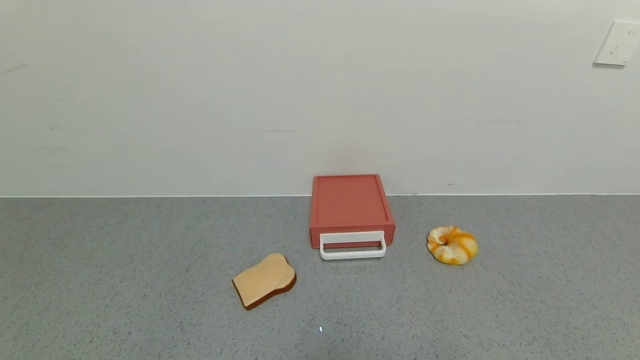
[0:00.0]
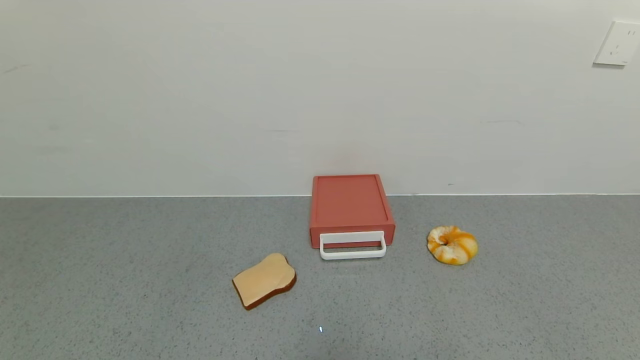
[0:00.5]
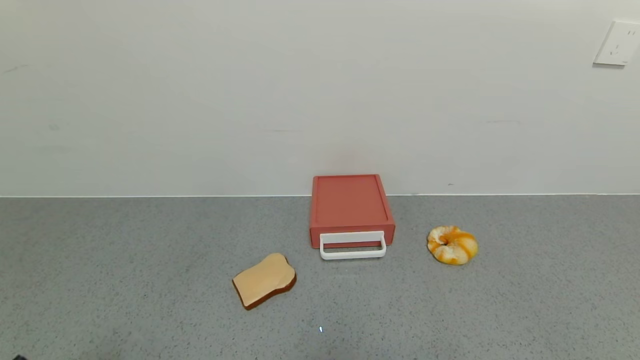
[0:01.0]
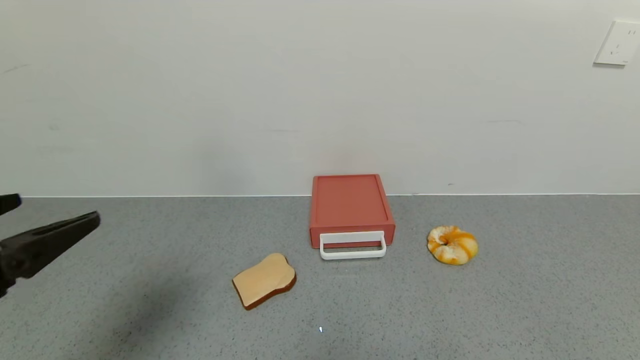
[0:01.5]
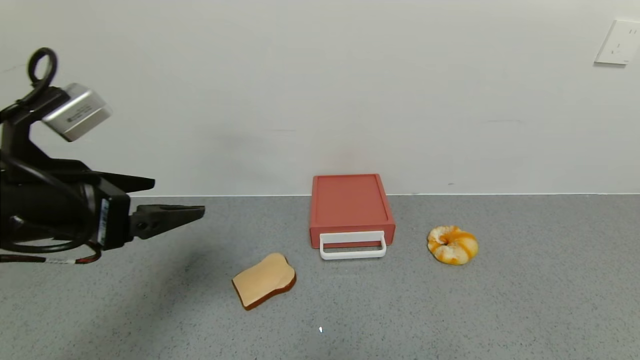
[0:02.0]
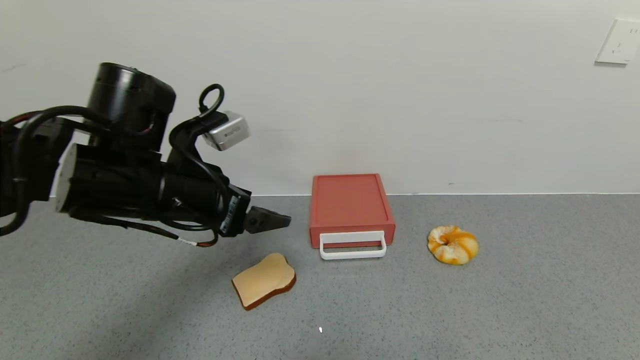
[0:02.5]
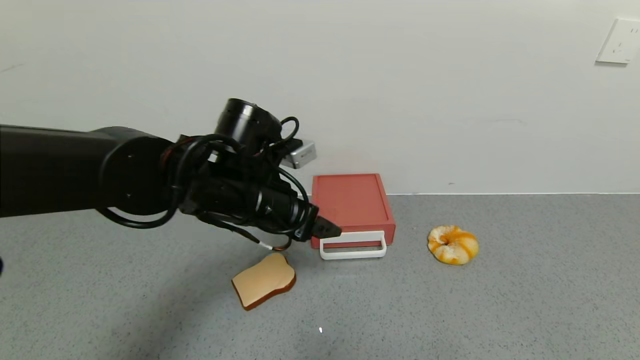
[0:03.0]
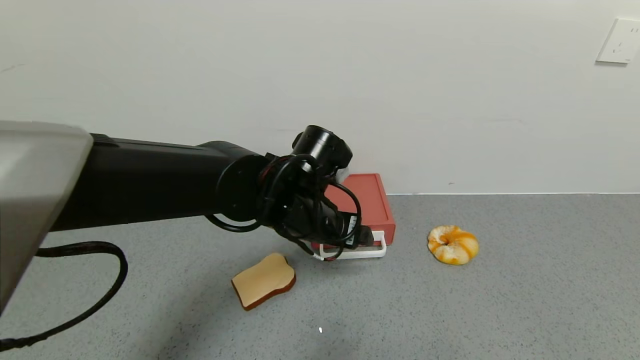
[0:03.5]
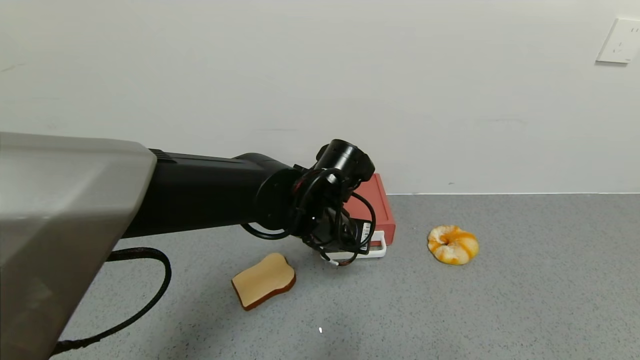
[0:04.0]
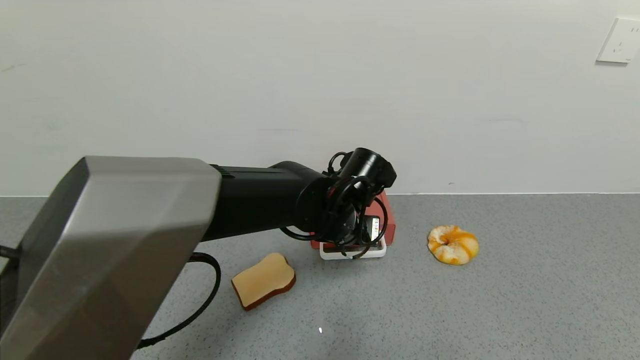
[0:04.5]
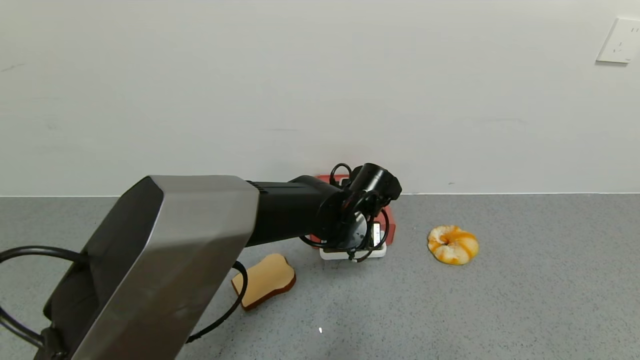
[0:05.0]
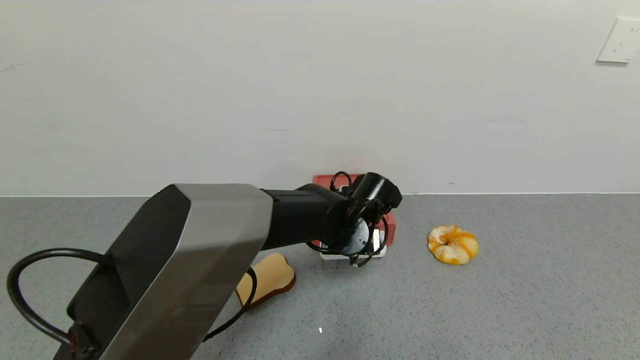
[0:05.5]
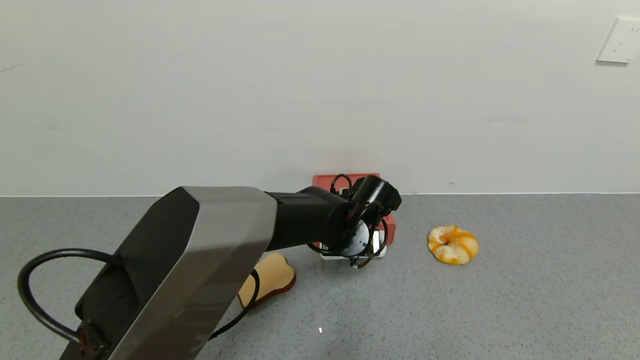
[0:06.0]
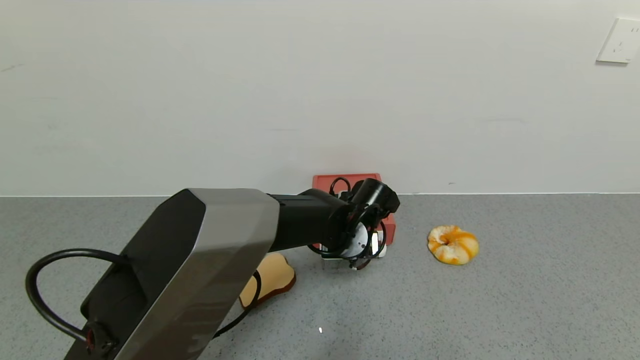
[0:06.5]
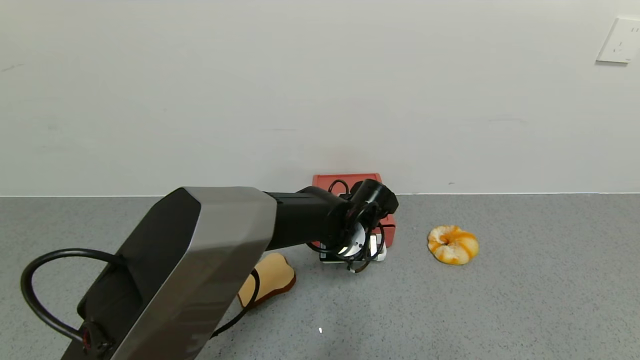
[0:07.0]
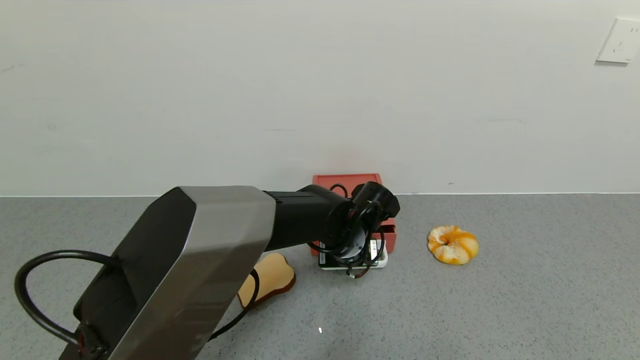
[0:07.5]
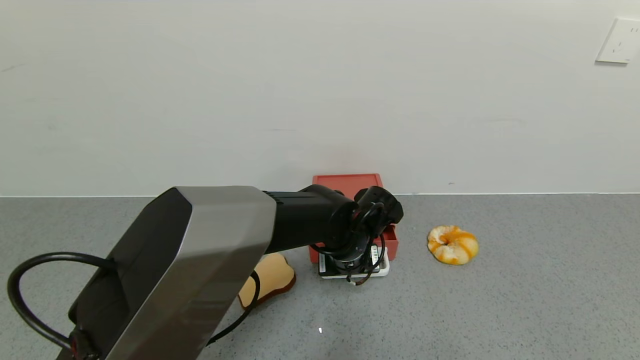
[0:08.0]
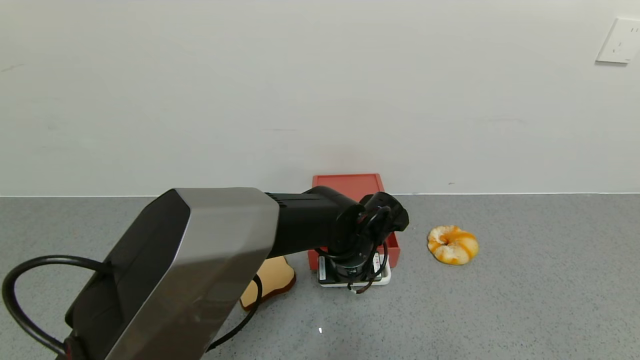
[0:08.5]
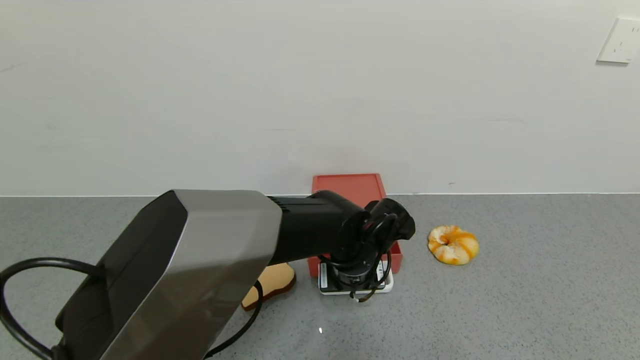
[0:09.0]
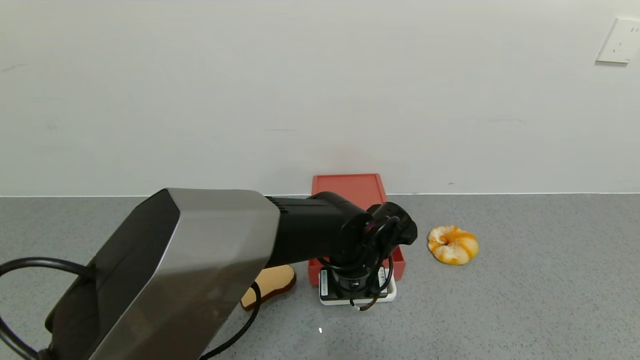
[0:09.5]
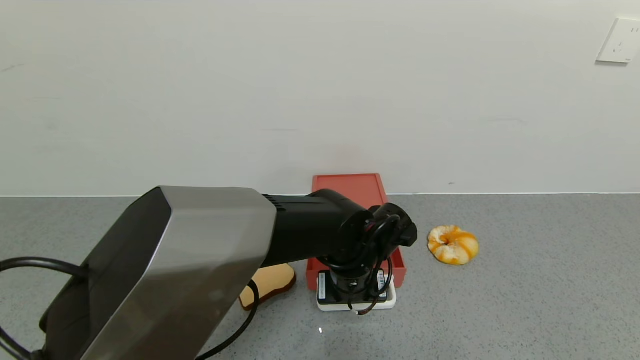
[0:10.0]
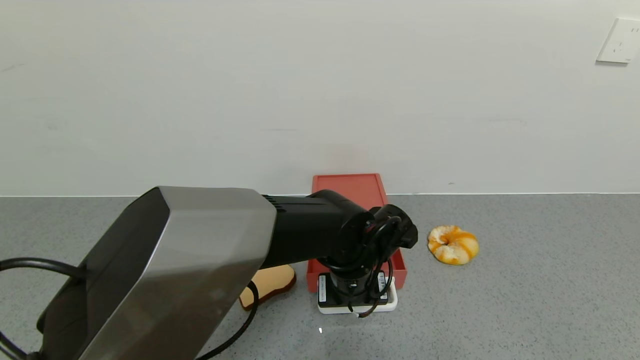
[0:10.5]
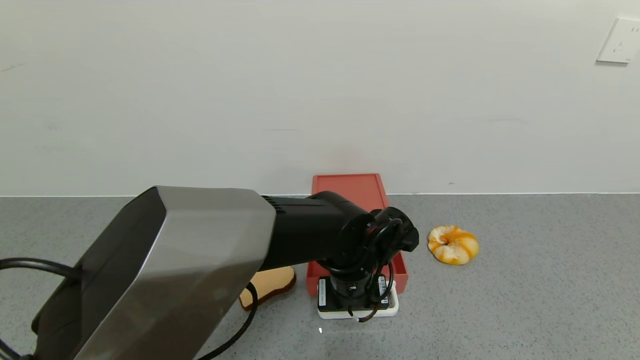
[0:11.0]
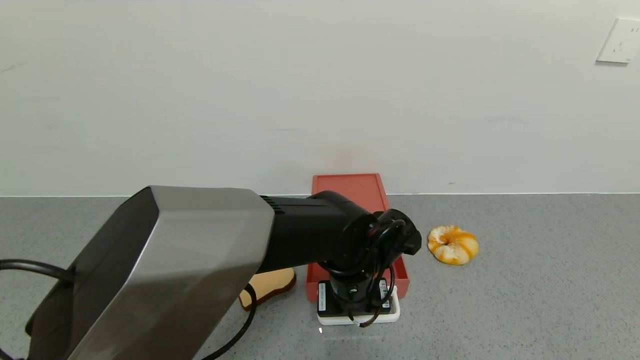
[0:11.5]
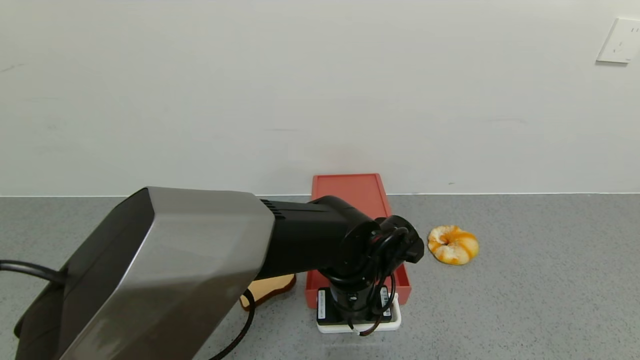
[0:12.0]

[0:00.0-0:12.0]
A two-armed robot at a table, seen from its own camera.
Task of the whole recording: use the gripper to open the drawer and close the red drawer.
0:00.0 to 0:02.0: The left gripper is displaced forward and upward by roughly 25 cm.
0:02.0 to 0:04.0: The left gripper moves to the right, forward and downward, roughly 30 cm, and closes up.
0:04.0 to 0:06.0: The left gripper is displaced downward by roughly 5 cm, and closes.
0:06.0 to 0:08.0: The grippers move only a little.
0:08.0 to 0:10.0: The grippers move only a little.
0:10.0 to 0:12.0: There are only small adjustments of the grippers.

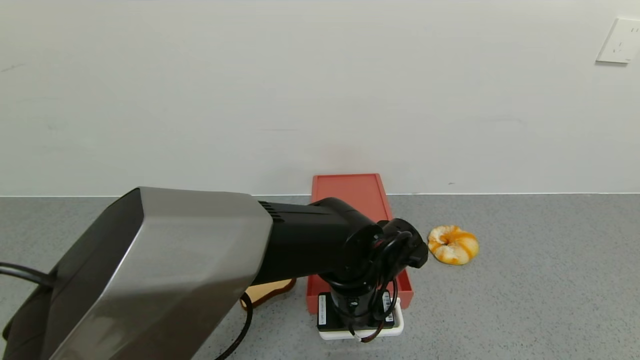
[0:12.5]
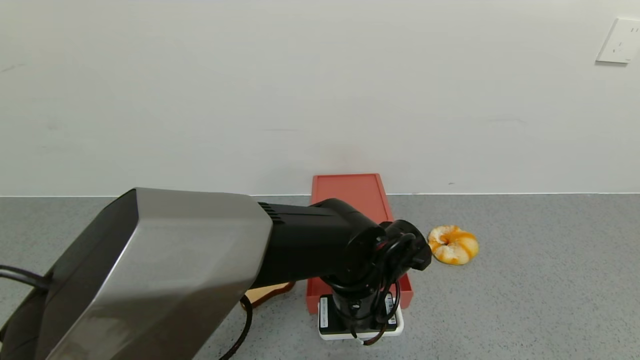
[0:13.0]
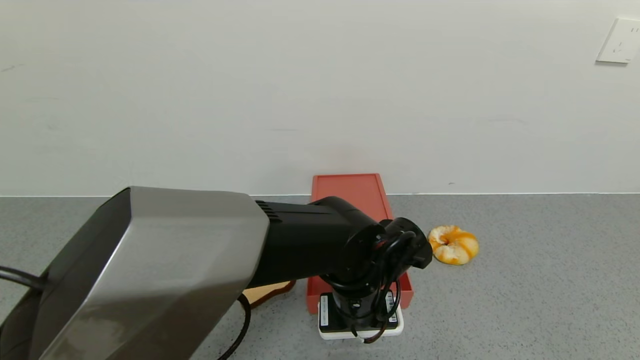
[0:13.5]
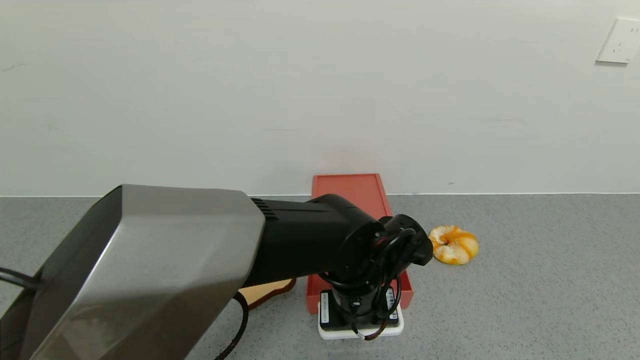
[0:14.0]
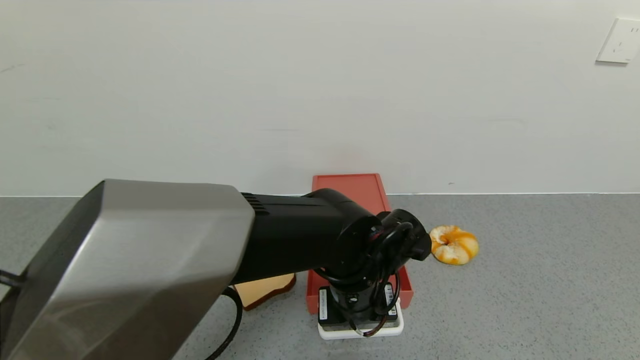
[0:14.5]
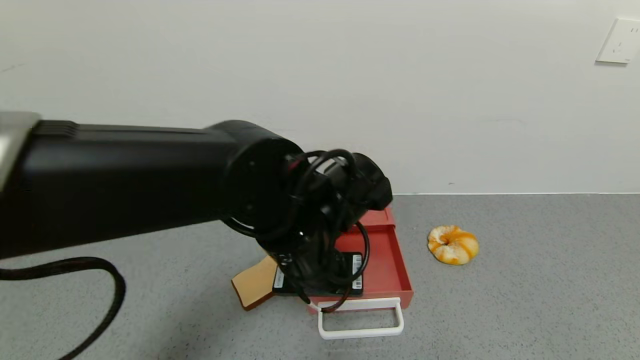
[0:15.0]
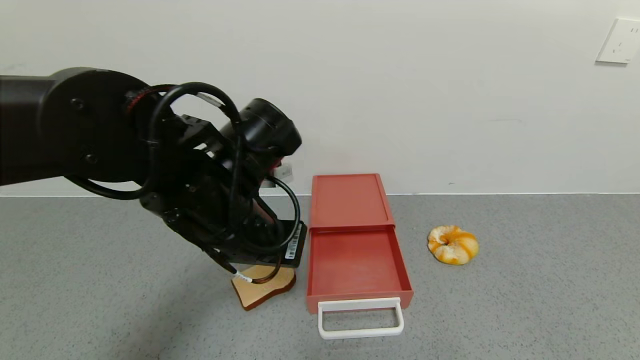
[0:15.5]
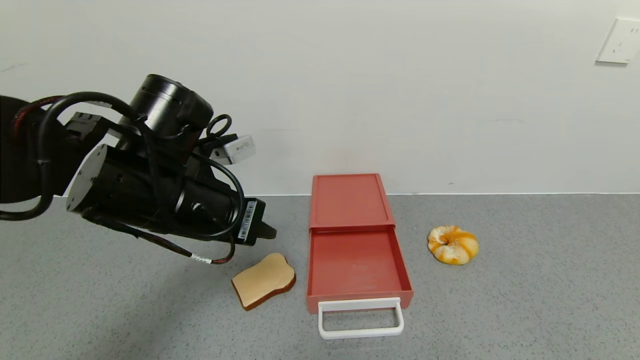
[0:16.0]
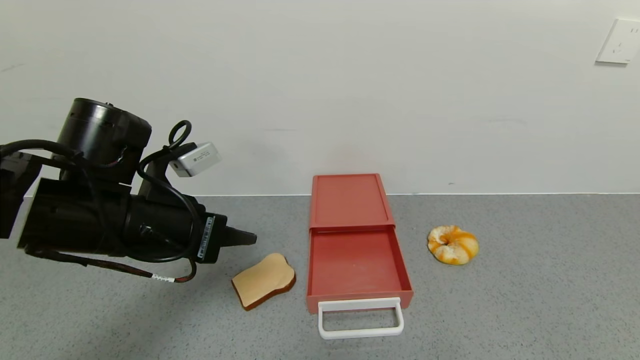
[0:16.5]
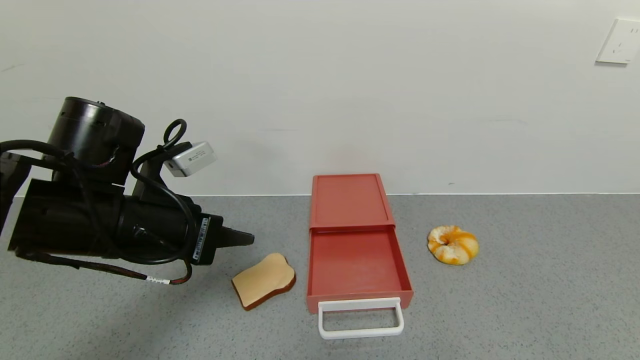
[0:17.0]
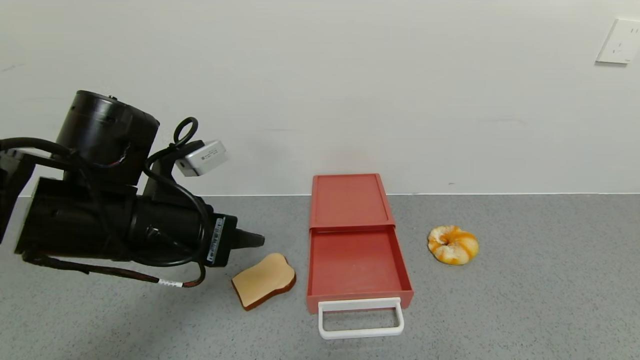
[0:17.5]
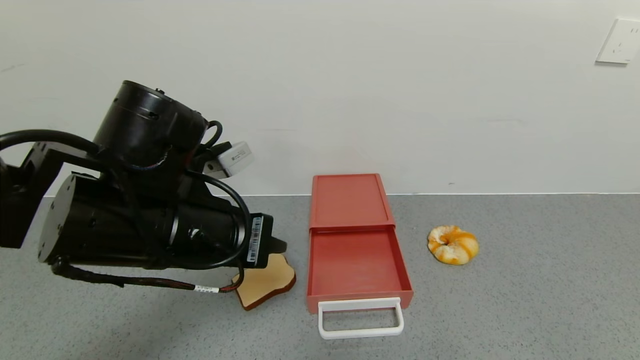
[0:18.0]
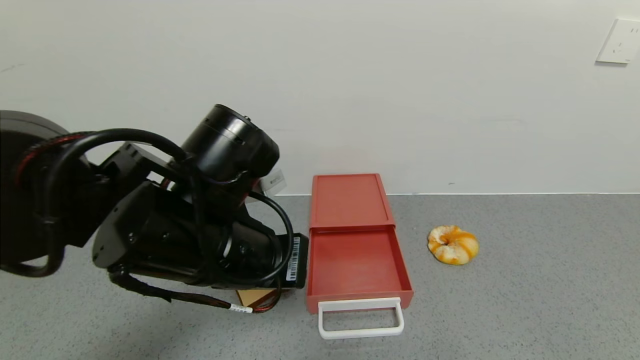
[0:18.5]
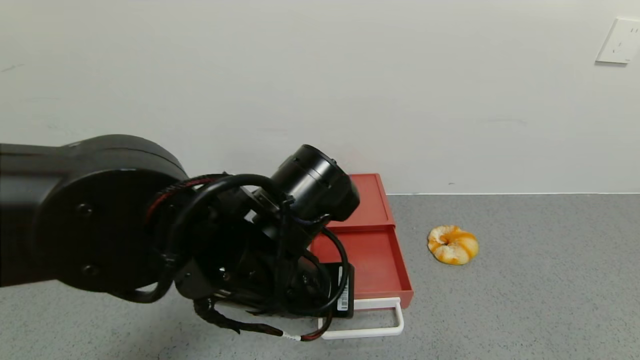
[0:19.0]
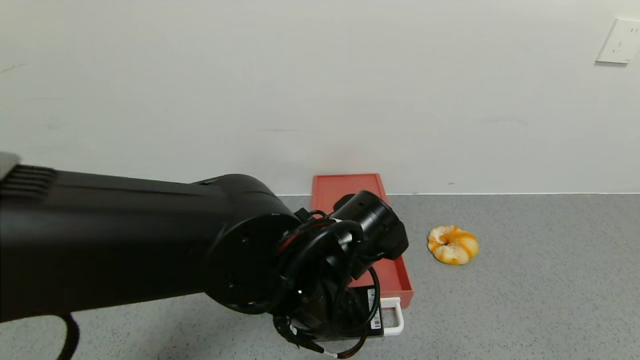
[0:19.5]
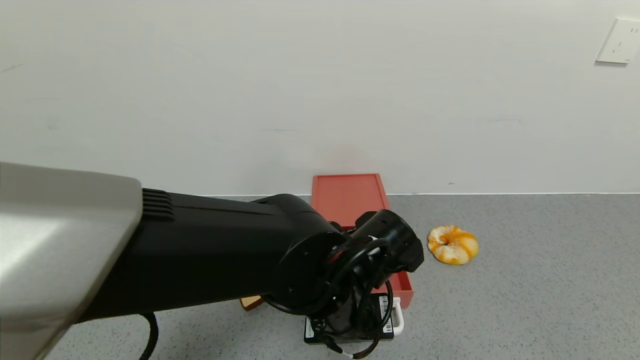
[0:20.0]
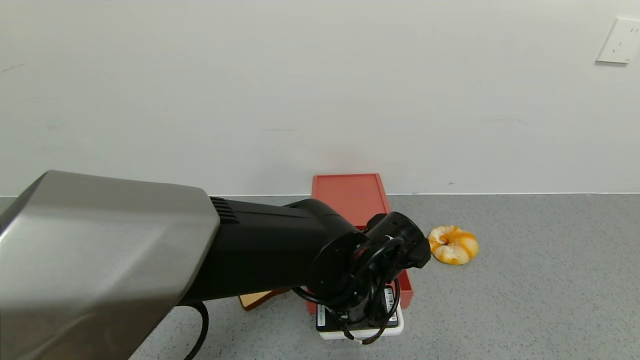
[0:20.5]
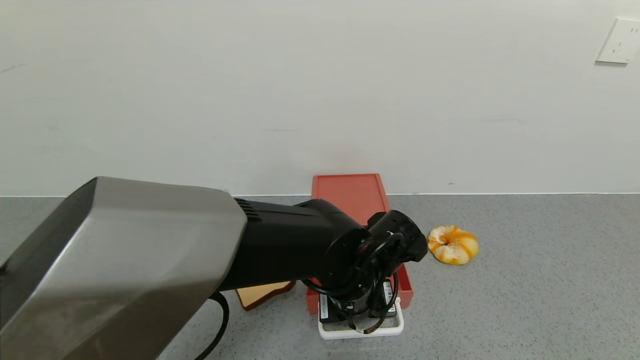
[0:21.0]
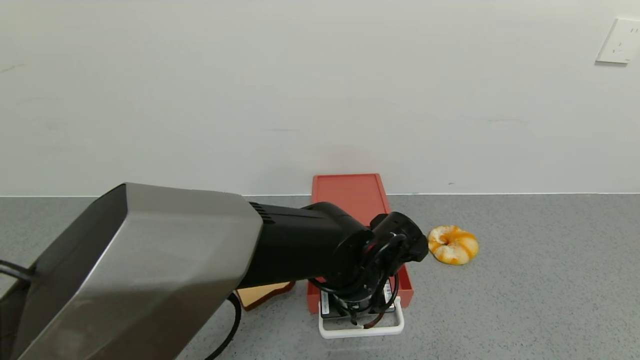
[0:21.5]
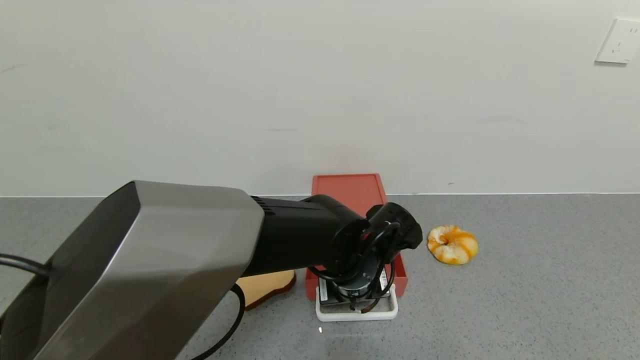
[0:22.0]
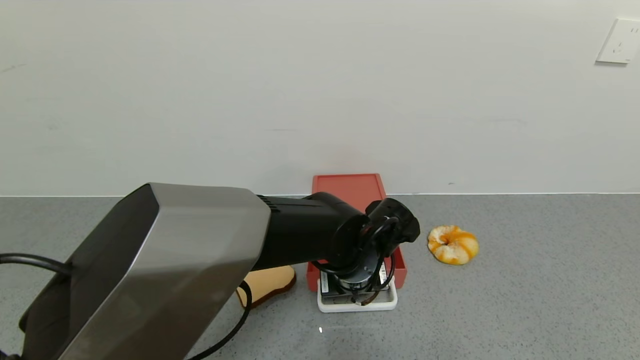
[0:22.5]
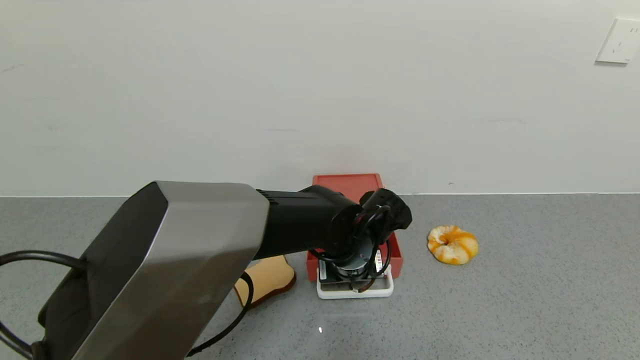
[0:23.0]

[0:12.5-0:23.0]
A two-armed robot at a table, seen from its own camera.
Task of the whole recording: use the gripper to open the drawer and close the red drawer.
Step, 0:12.5 to 0:14.5: Open the red drawer with the left gripper.
0:12.5 to 0:14.5: The grippers make only small movements.
0:14.5 to 0:16.5: The left gripper heads to the left and upward, covering approximately 25 cm.
0:16.5 to 0:19.0: The left gripper heads to the right, covering about 15 cm.
0:19.0 to 0:21.0: The left gripper moves downward, to the right and forward, approximately 15 cm.
0:21.0 to 0:23.0: The left gripper travels forward by roughly 5 cm.
